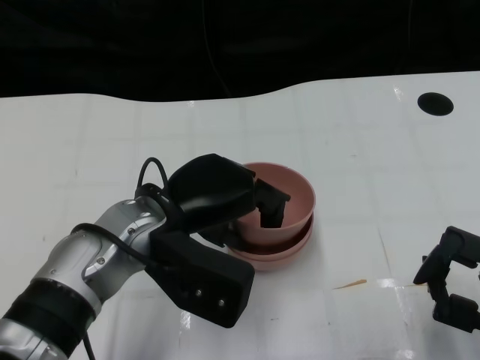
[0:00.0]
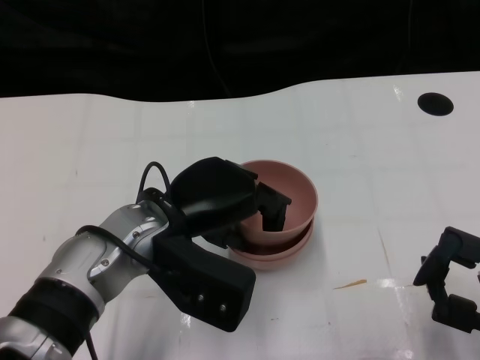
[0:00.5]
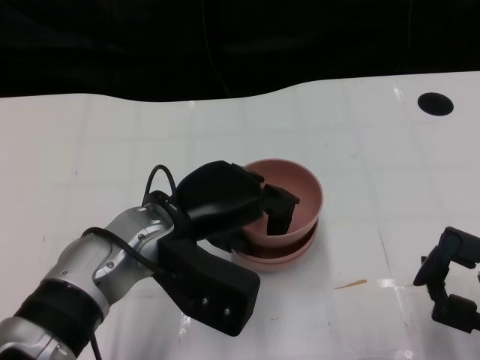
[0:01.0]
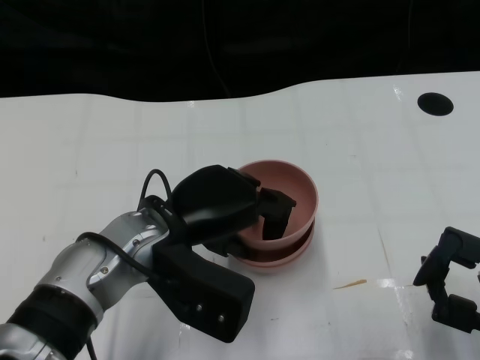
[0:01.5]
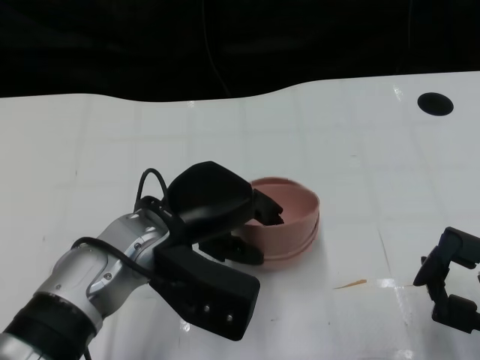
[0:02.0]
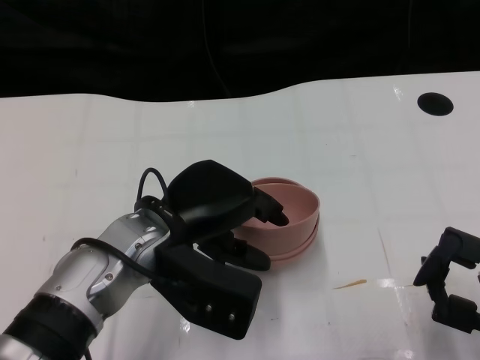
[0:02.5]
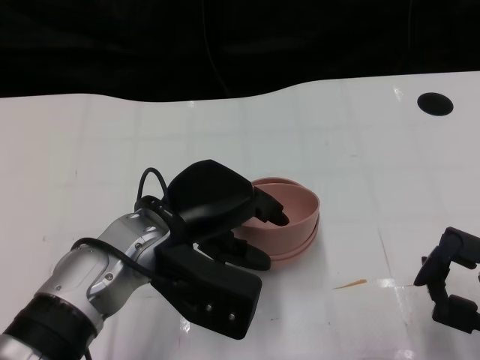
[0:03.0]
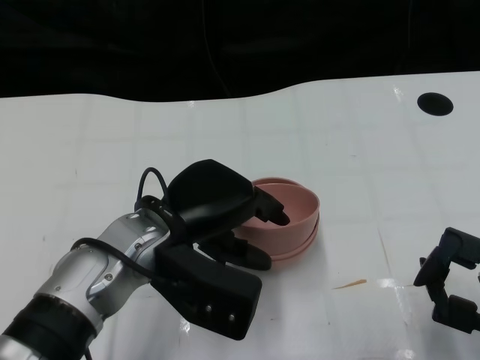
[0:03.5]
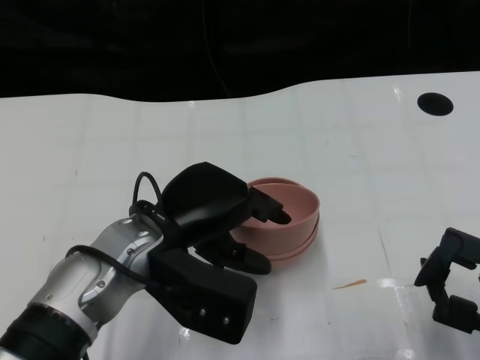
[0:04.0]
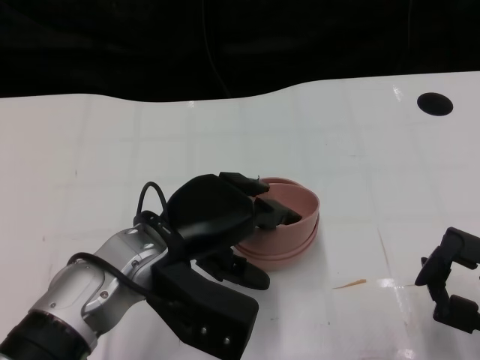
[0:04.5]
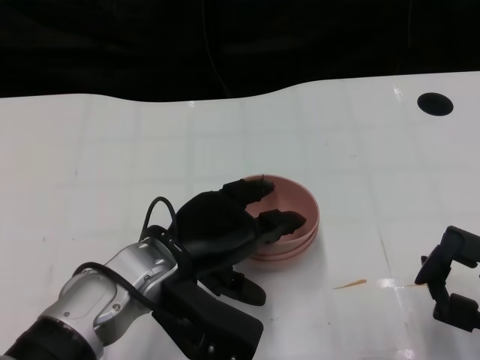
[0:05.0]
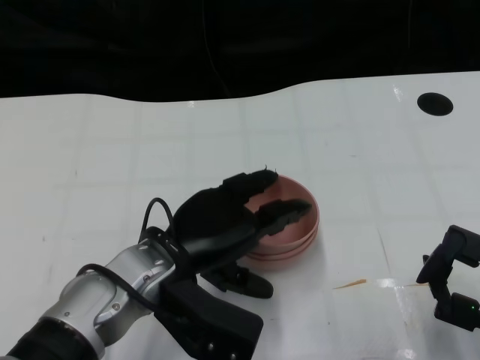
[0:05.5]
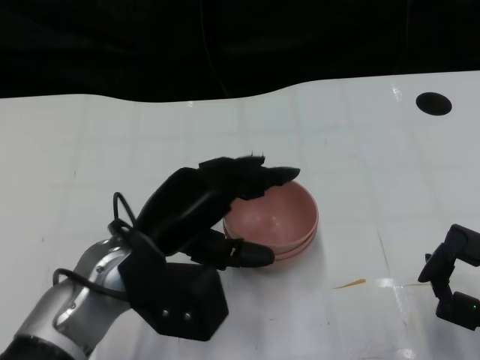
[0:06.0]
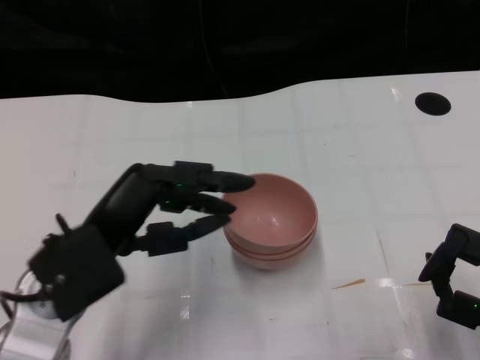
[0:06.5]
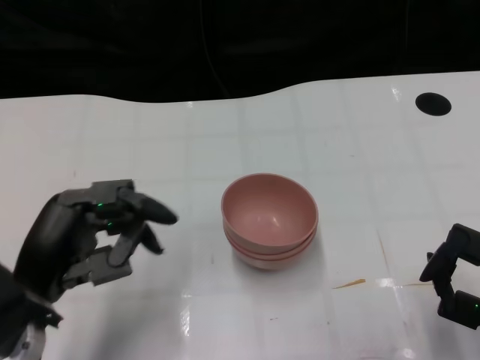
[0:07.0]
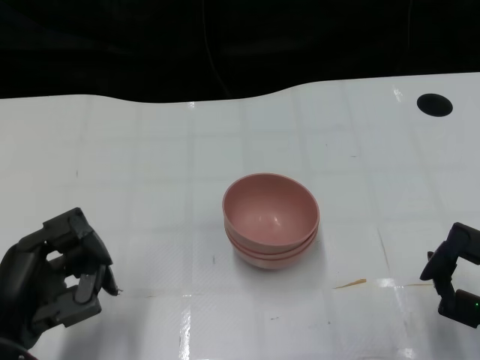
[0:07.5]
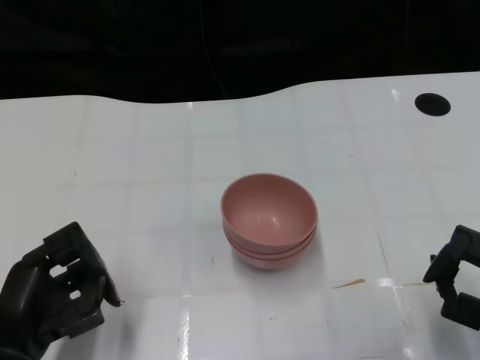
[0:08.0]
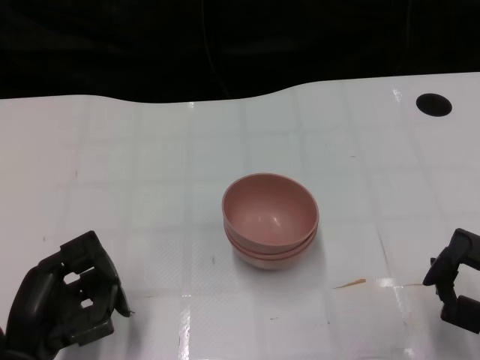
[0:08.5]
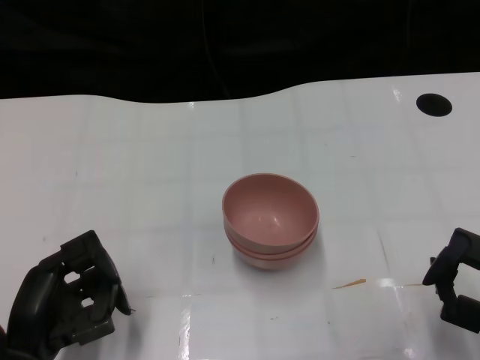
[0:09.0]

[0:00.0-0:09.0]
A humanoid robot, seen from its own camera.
Task of the whole recording: Pick up the bowl on one side of the table and place it on top of the middle bowl, then pick up the bowl on the other side of the table and place it on top of the middle bowls.
Step, 0:00.0 to 0:06.5: Place the bowl on the left onto the bowl in the middle with left gripper.
0:00.0 to 0:02.0: The two hands keep their place.
0:02.0 to 0:04.5: Neither hand changes place.
0:04.5 to 0:07.0: The left hand travels to the left and backward by approximately 10 cm.
0:07.0 to 0:09.0: The left hand shifts approximately 5 cm downward.

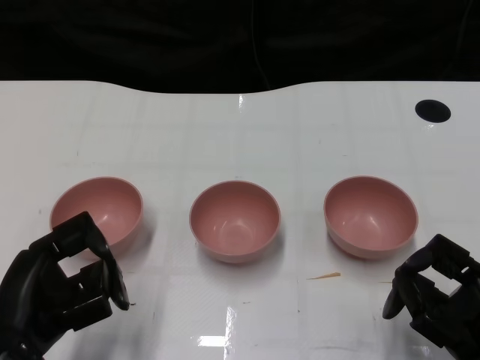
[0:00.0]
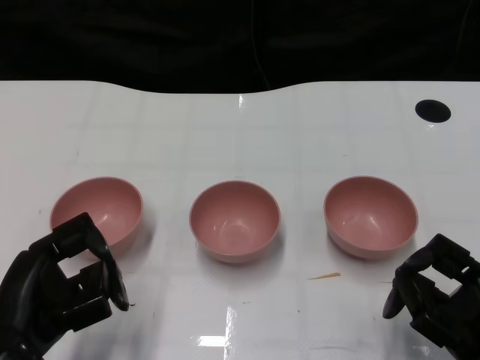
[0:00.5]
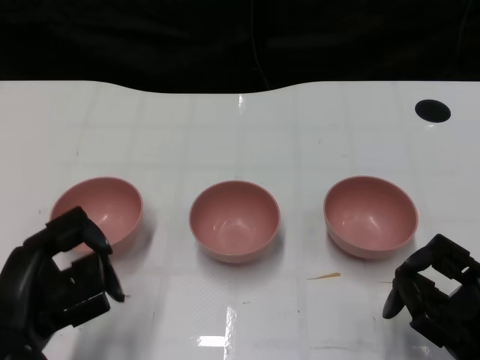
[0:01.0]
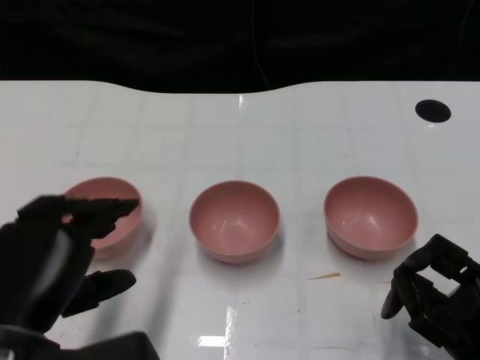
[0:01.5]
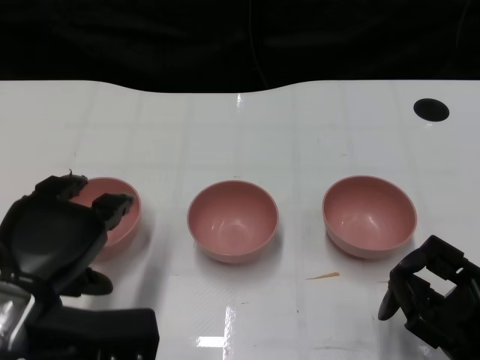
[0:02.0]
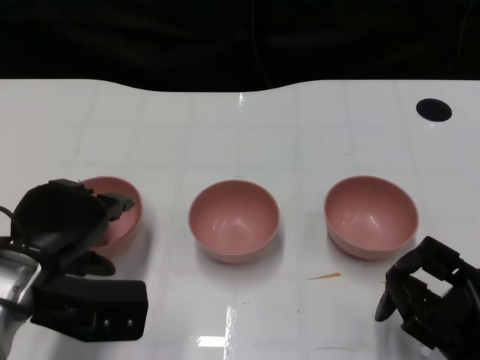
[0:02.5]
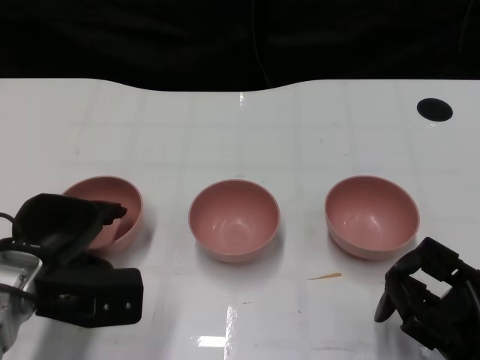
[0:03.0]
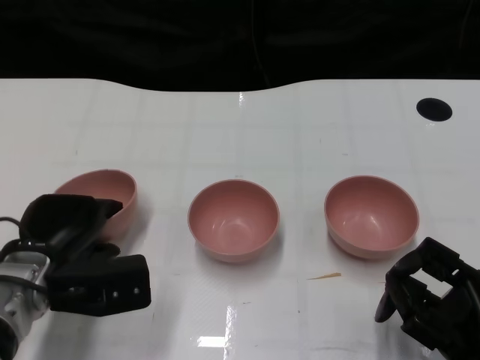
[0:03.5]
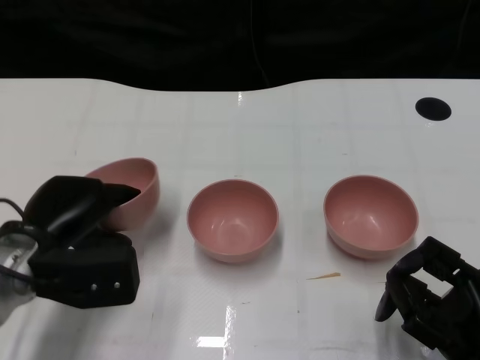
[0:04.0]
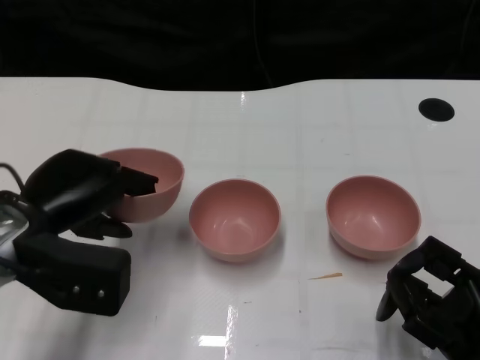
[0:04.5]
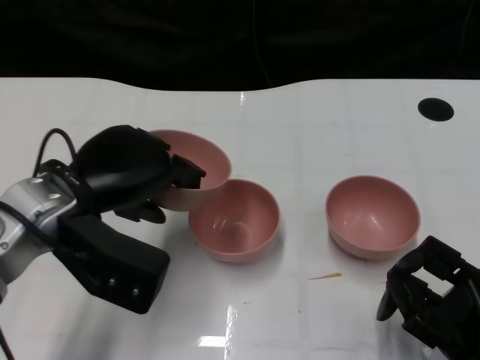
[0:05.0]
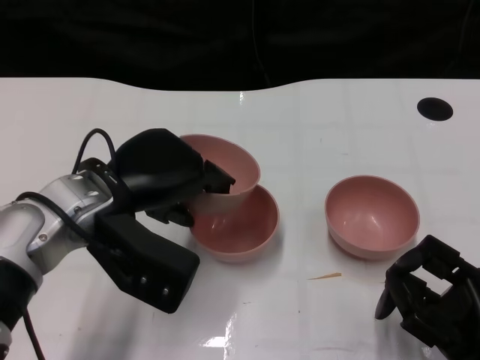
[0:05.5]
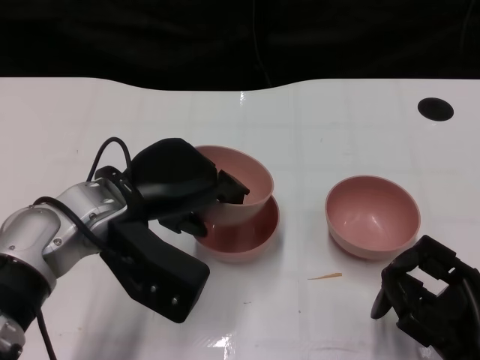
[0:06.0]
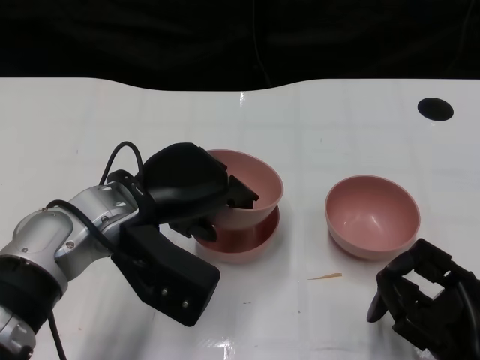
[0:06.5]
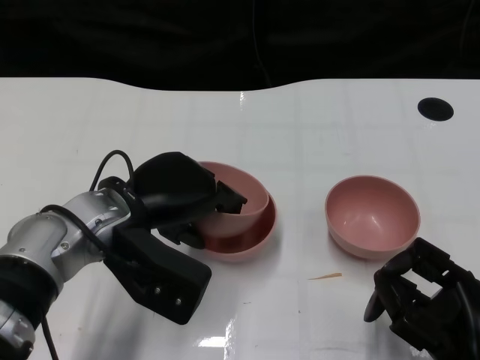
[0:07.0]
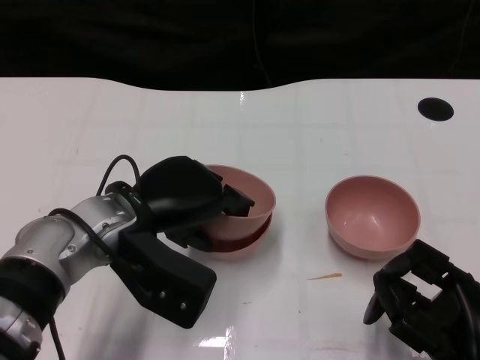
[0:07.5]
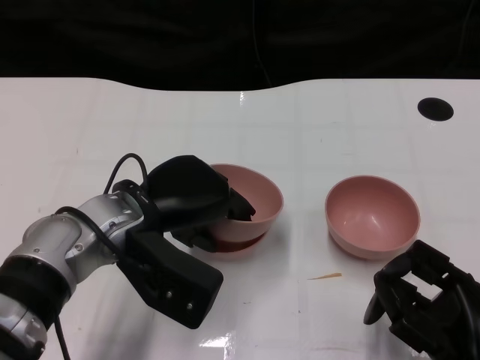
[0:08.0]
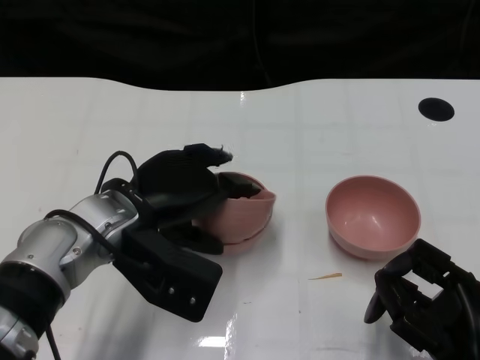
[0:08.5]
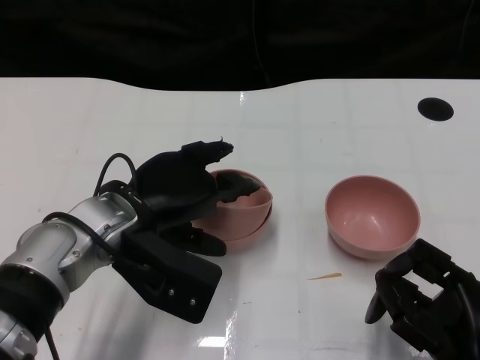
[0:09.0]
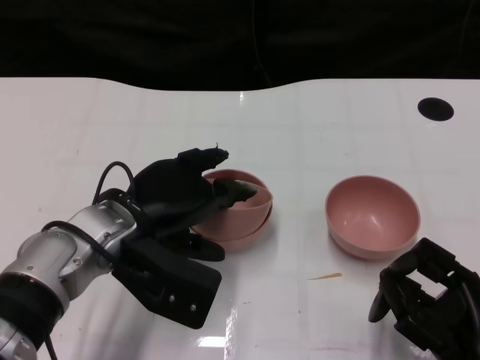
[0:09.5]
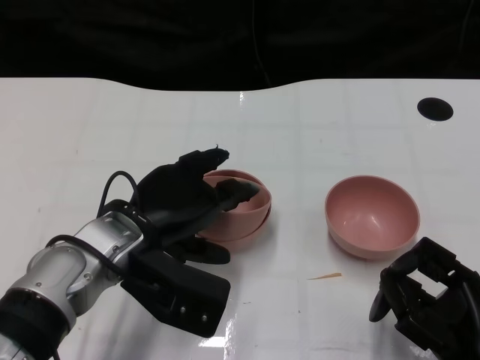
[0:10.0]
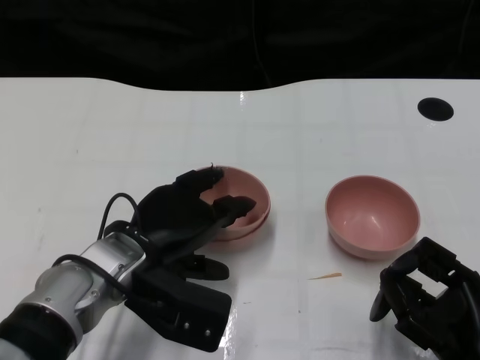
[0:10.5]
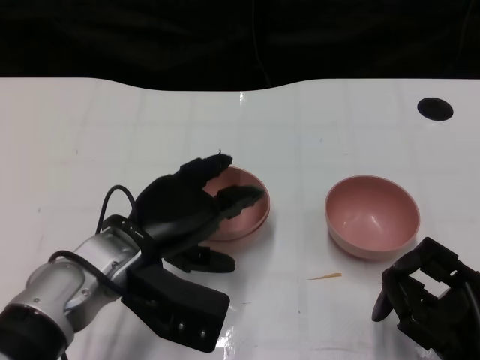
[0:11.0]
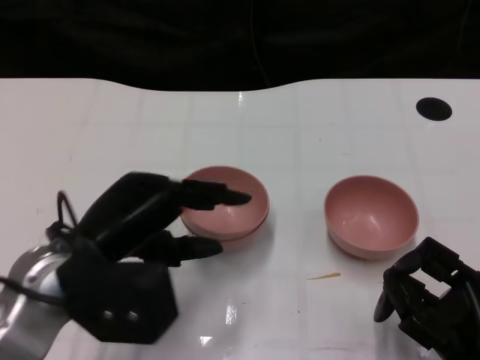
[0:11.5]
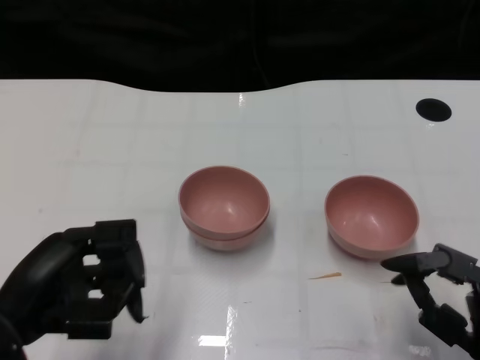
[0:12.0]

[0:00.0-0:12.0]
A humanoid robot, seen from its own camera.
Task of the whole recording: Pick up the bowl on one side of the table and place it on top of the middle bowl, then pick up the bowl on the other side of the table and place it on top of the middle bowls.
Step, 0:01.0 to 0:03.5: Grasp the bowl on the left with the left gripper.
Step, 0:04.0 to 0:11.0: Place the bowl on the left onto the bowl in the middle with left gripper.
0:02.0 to 0:04.0: The left hand is displaced forward and downward by approximately 10 cm.
0:04.0 to 0:06.0: The left hand goes roughly 10 cm to the right and upward.
0:06.0 to 0:10.0: The hands move only a little.
0:10.0 to 0:12.0: The left hand moves to the left and backward, about 15 cm.

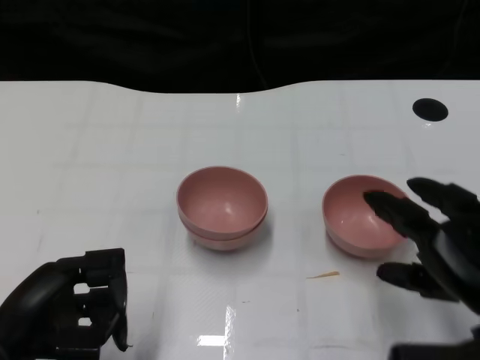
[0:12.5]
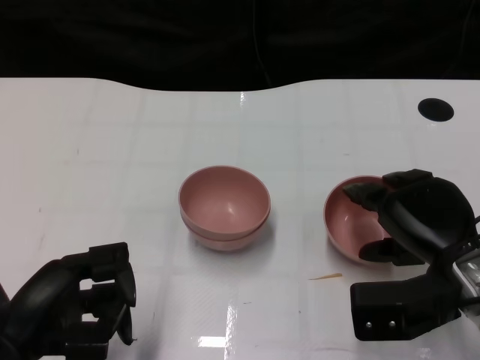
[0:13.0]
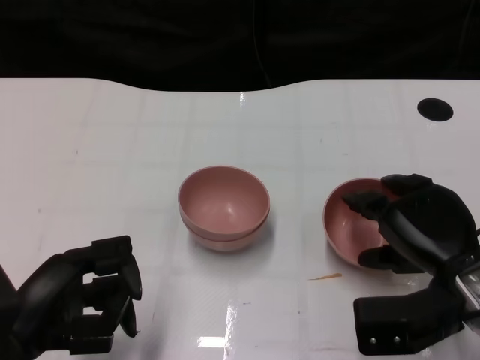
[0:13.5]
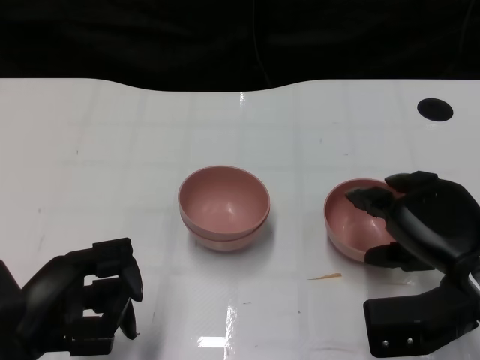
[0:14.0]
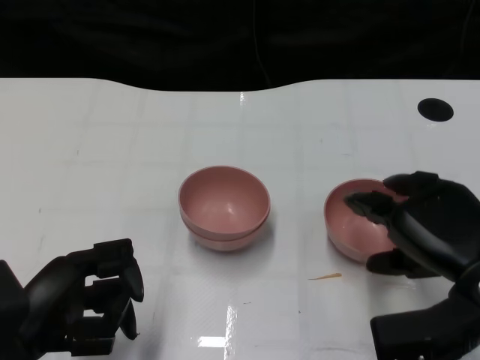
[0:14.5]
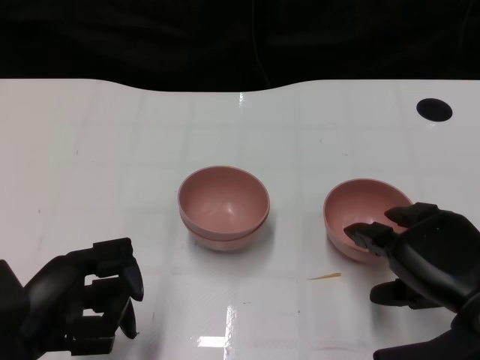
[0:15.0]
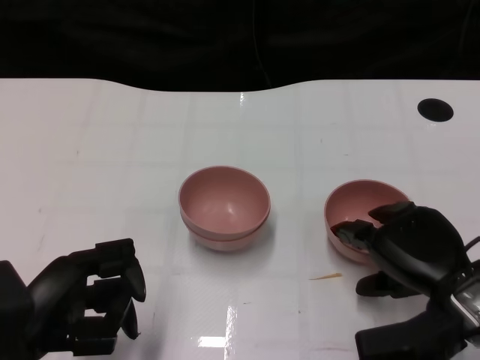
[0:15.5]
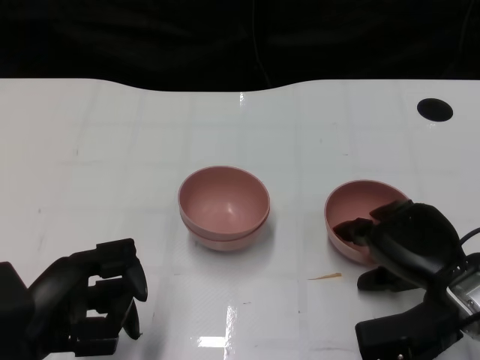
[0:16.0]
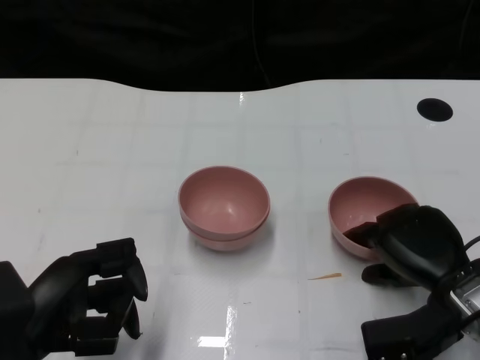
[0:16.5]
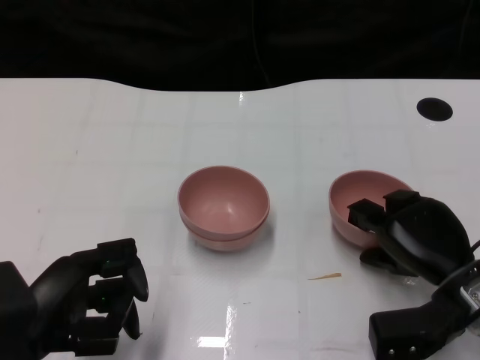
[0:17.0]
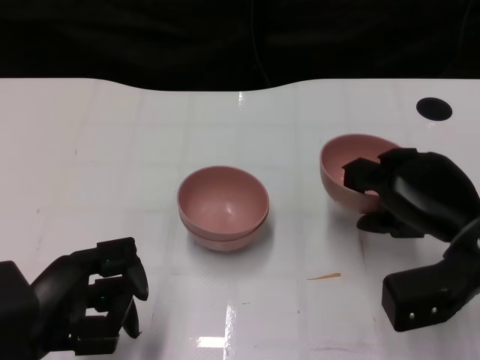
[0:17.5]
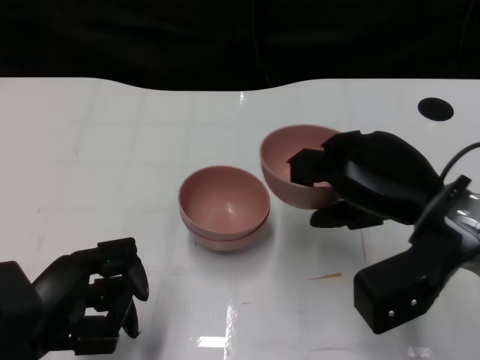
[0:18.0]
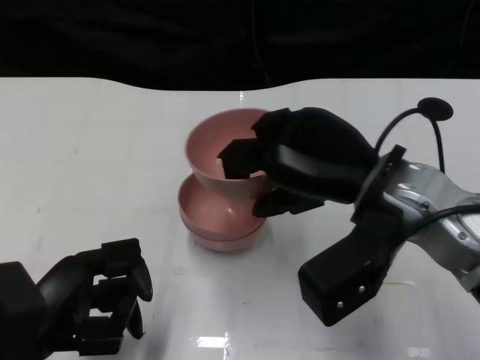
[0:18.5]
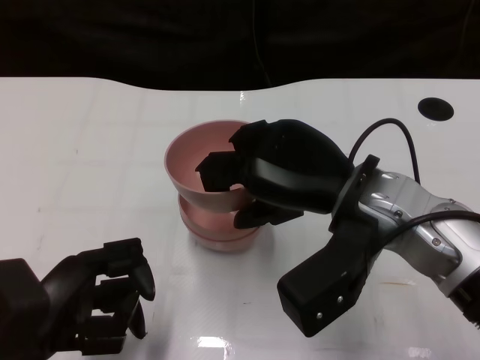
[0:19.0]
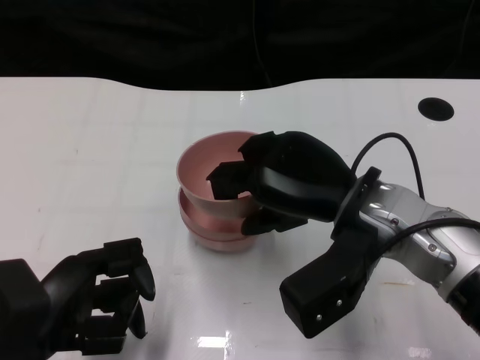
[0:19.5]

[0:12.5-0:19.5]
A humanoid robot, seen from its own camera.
Task of the whole recording: Pick up the bowl on one side of the table and place it on top of the middle bowl, then pick up the bowl on the other side of the table and place it on top of the middle bowls.
Step, 0:12.5 to 0:17.0: Grasp the bowl on the right with the right gripper.
0:14.5 to 0:16.0: The right hand goes some 5 cm downward.
0:16.0 to 0:17.5: The hands move only a little.
0:17.5 to 0:19.5: The right hand goes about 10 cm to the left and upward.
